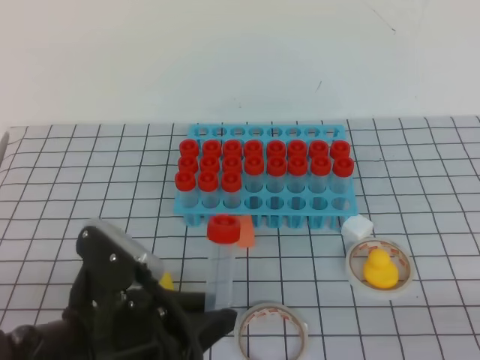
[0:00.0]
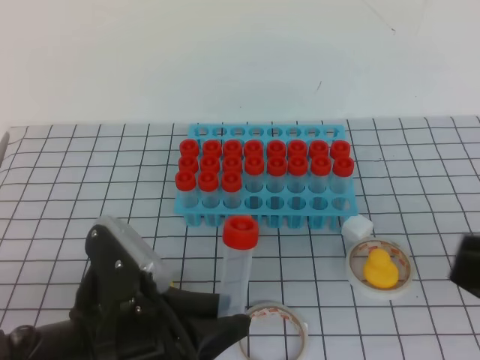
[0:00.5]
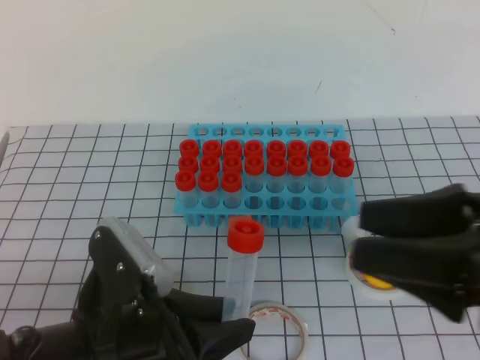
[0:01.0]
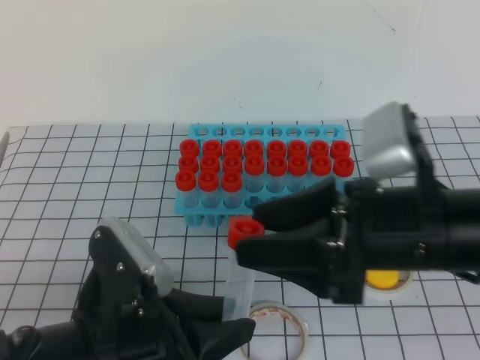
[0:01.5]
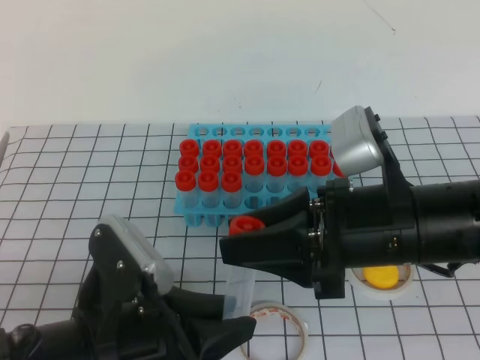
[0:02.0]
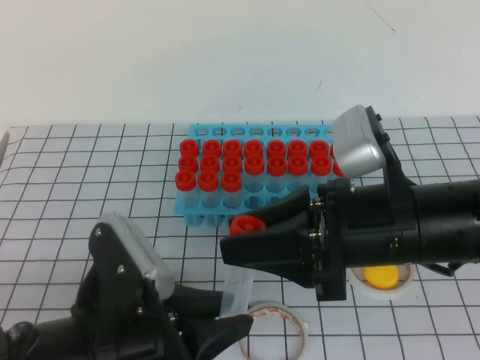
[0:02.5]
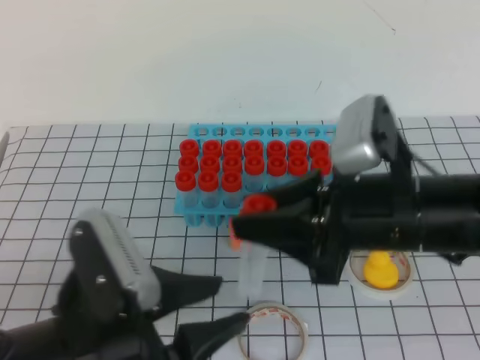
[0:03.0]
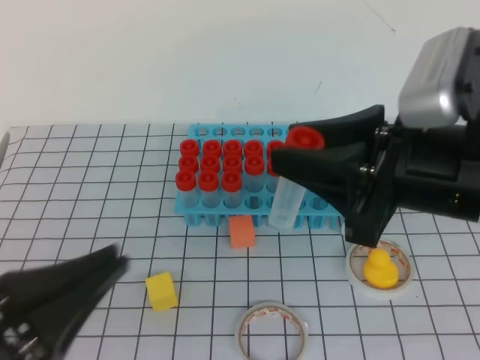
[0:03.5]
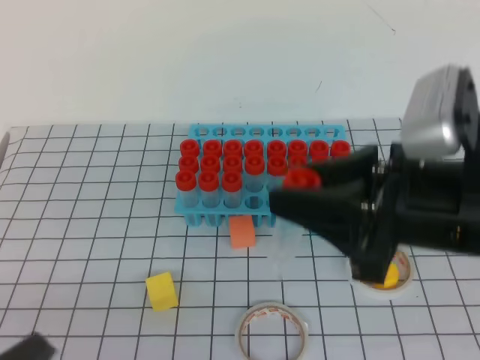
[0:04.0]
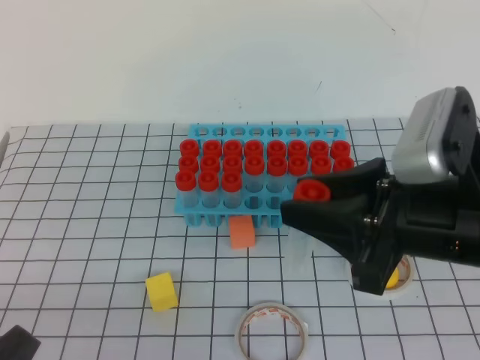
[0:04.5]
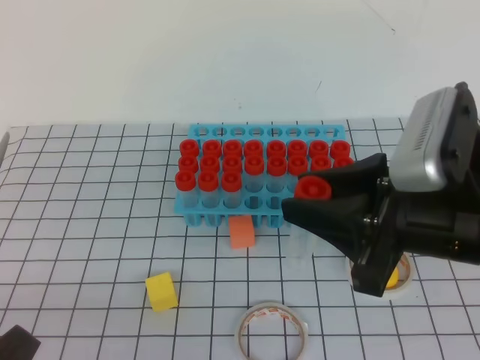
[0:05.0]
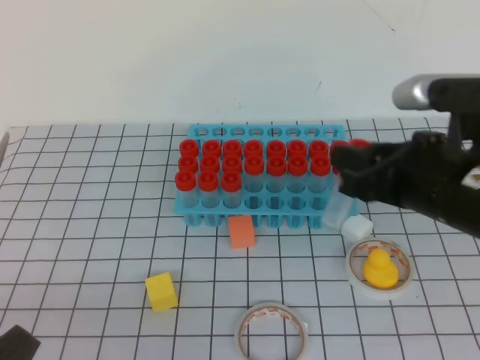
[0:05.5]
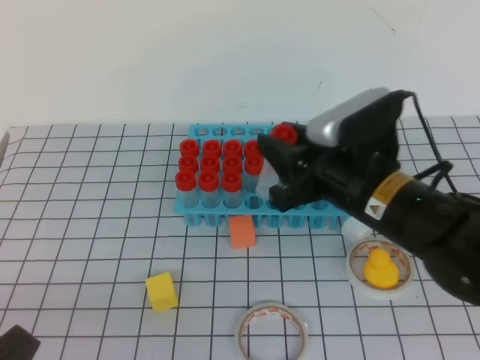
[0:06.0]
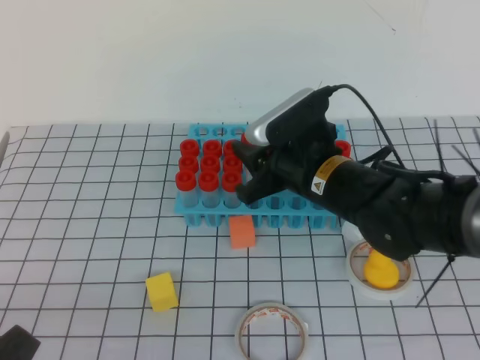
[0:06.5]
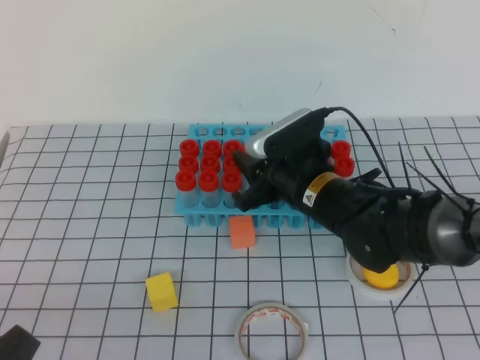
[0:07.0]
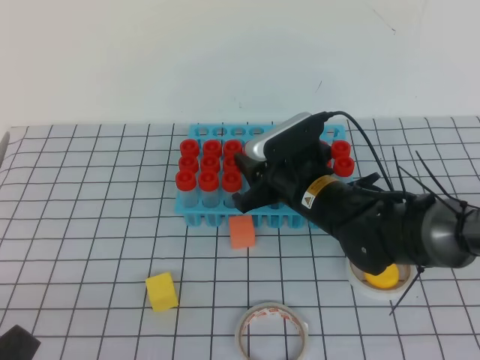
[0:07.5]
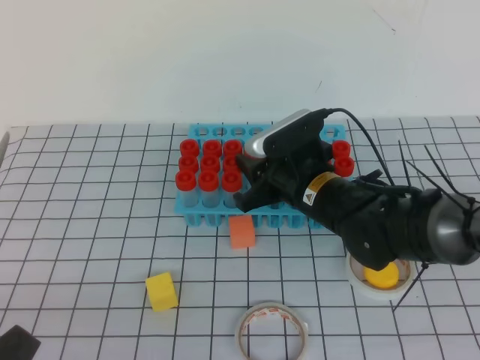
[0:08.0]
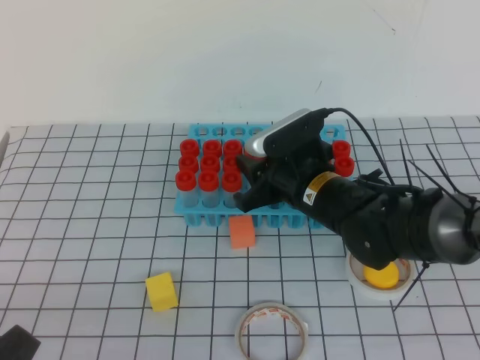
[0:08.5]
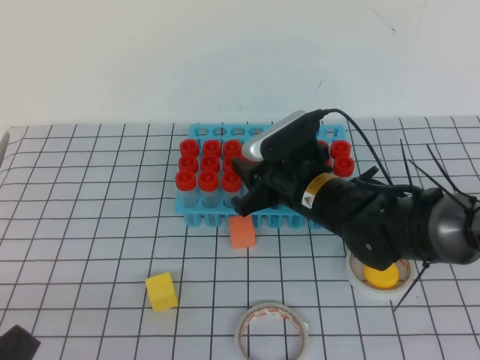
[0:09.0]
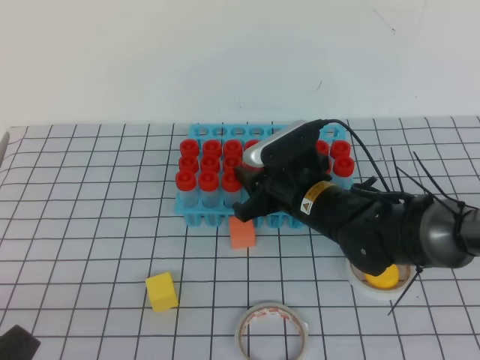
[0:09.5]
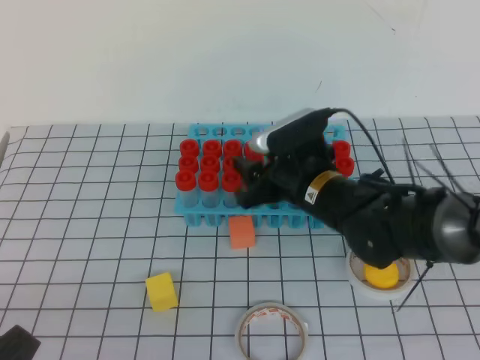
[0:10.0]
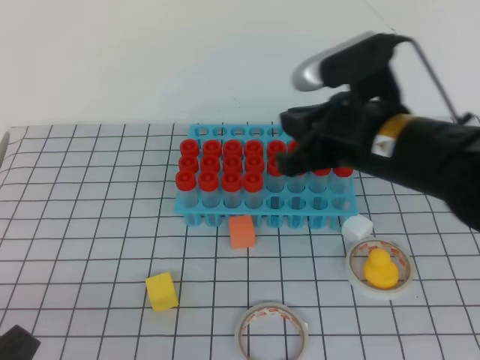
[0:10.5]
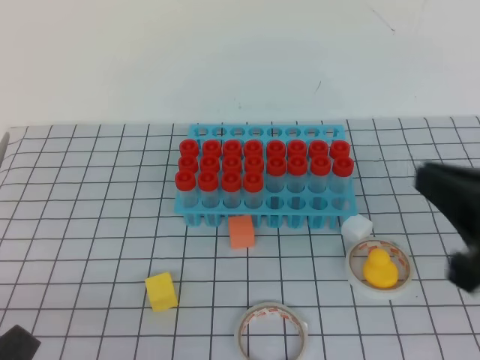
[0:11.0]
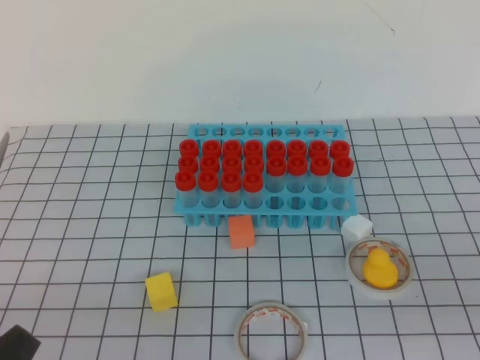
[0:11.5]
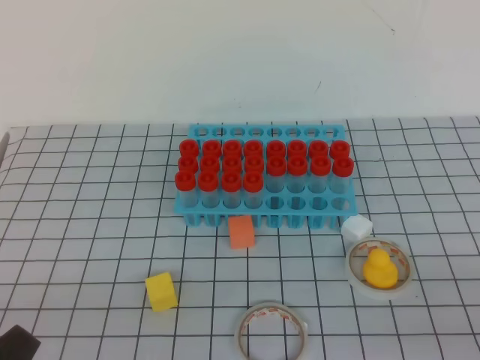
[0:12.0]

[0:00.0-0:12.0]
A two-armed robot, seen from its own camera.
0:00.0 to 0:02.0: The right gripper travels forward and to the left by about 25 cm, and opens its fingers.
0:02.0 to 0:04.0: The right gripper ends up approximately 5 cm from where it was. The left gripper travels backward and to the left by about 15 cm, and closes up.
0:04.0 to 0:06.0: The right gripper is displaced forward and downward by roughly 10 cm.
0:06.0 to 0:08.0: The right gripper goes roughly 10 cm downward and forward.
0:08.0 to 0:10.0: Neither gripper changes place.
0:10.0 to 0:12.0: The right gripper is displaced backward and to the right by approximately 35 cm, and closes.

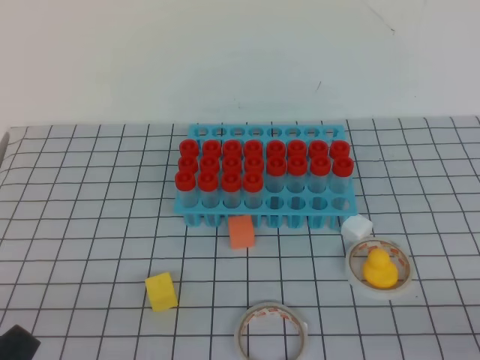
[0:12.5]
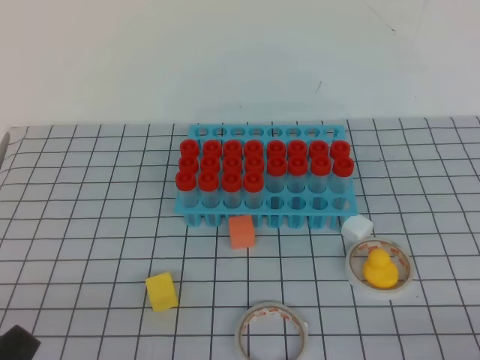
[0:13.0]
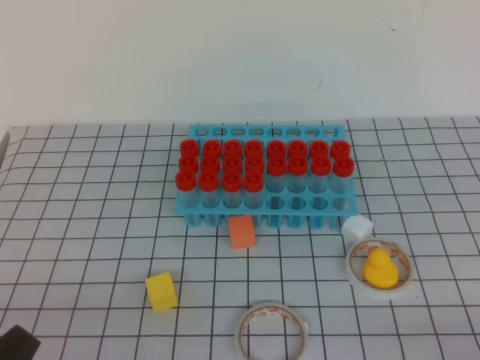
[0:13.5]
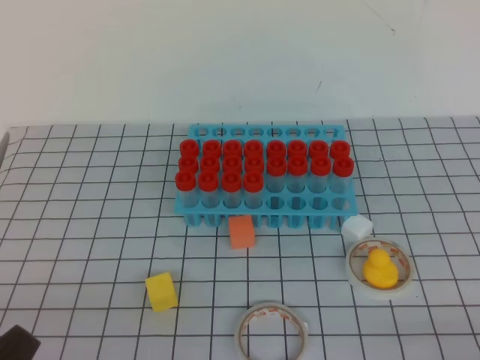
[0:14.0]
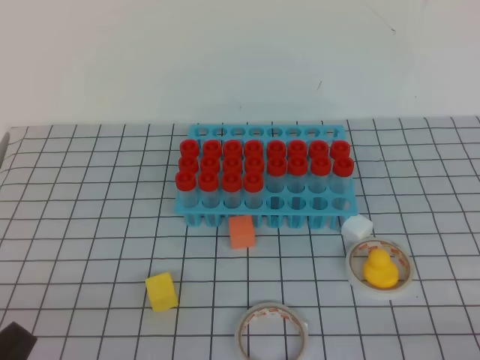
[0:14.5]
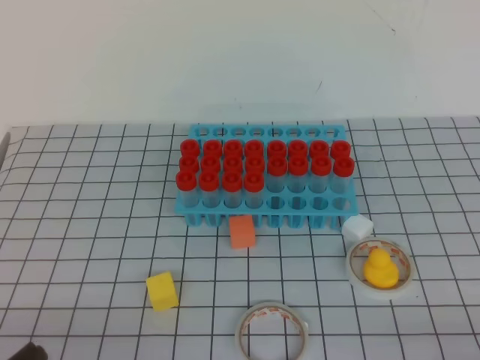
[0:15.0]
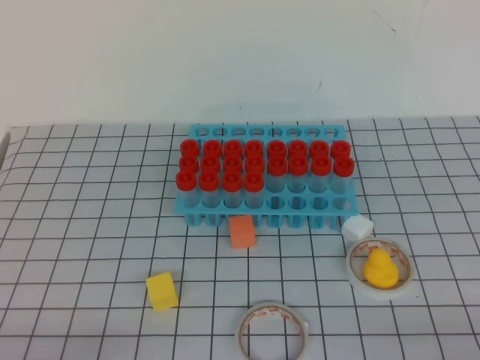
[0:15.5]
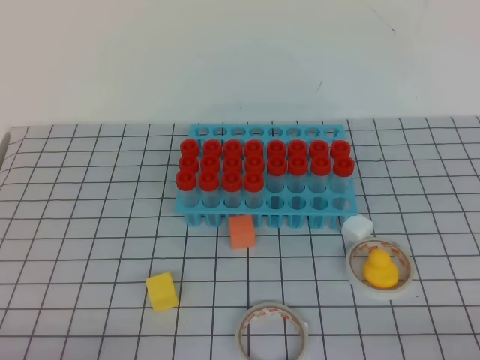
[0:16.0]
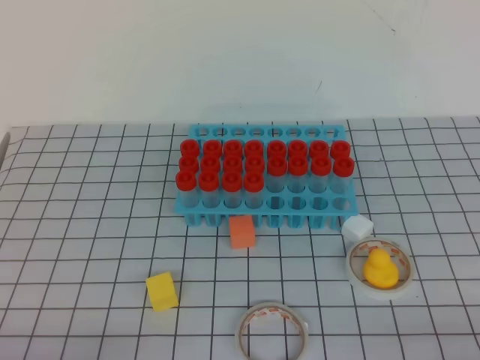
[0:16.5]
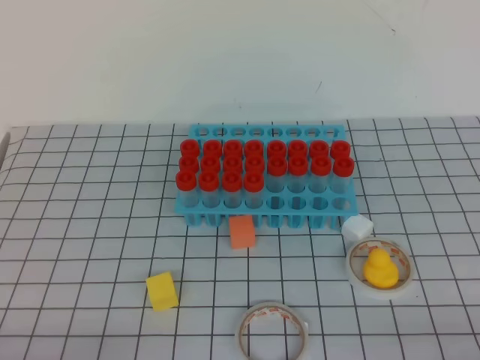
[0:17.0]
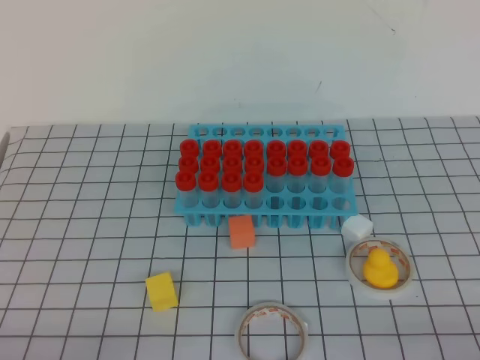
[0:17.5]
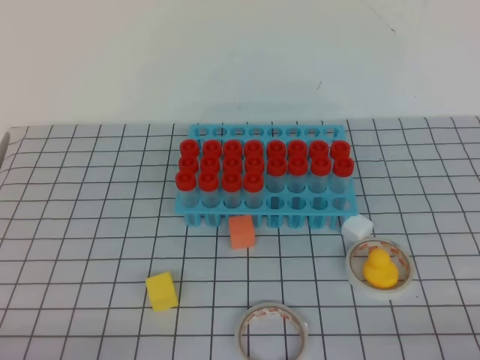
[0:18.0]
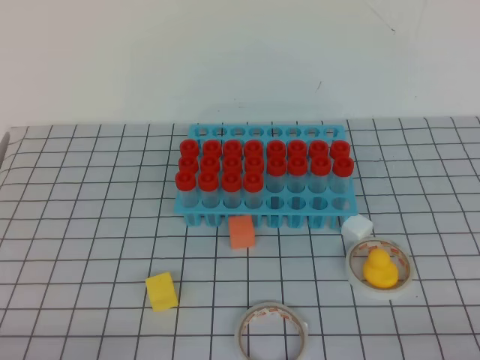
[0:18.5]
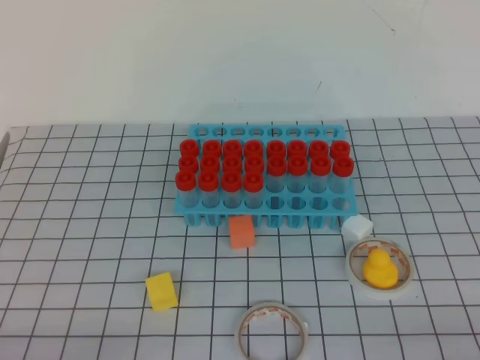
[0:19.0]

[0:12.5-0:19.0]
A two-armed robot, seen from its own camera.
0:14.5 to 0:17.0: The left gripper travels downward by approximately 5 cm.
0:17.0 to 0:19.0: Both grippers stay about where they are.
